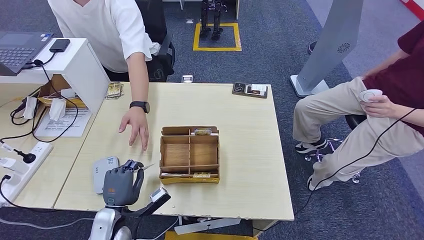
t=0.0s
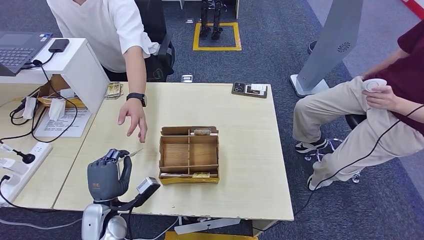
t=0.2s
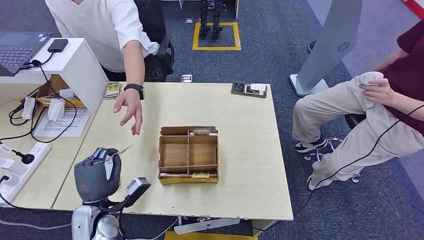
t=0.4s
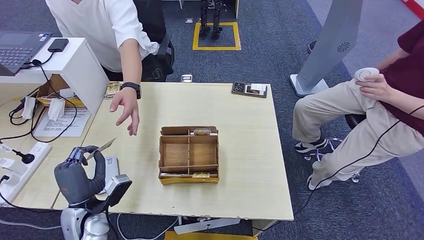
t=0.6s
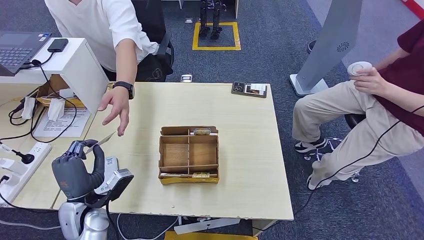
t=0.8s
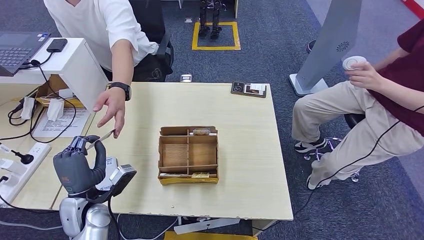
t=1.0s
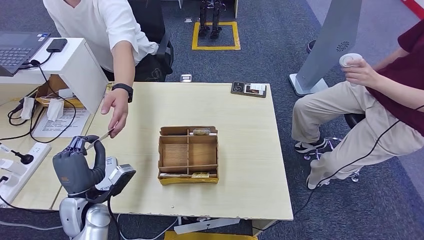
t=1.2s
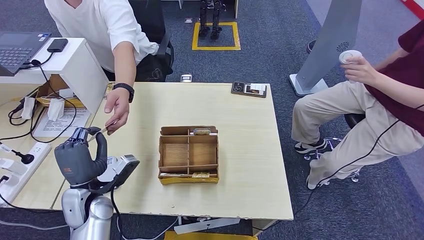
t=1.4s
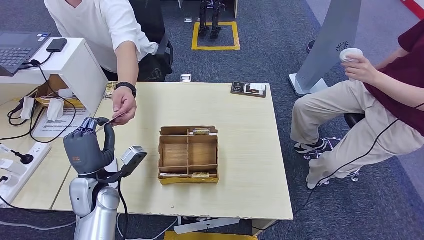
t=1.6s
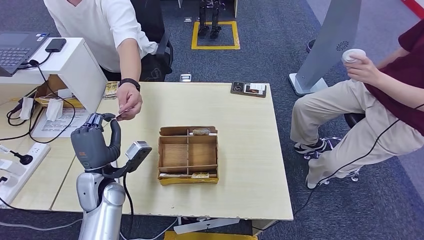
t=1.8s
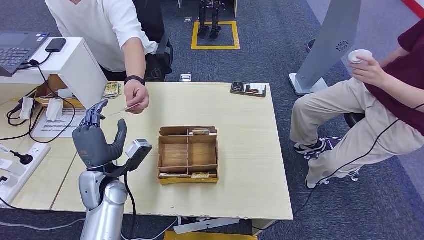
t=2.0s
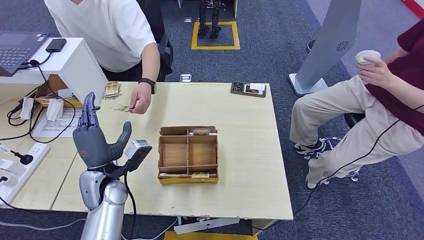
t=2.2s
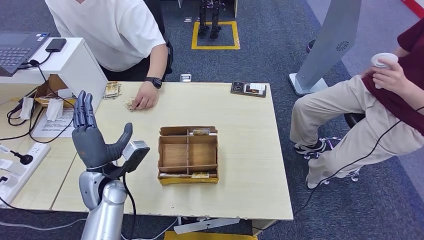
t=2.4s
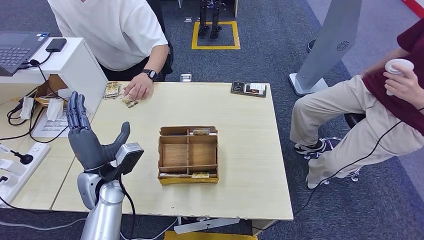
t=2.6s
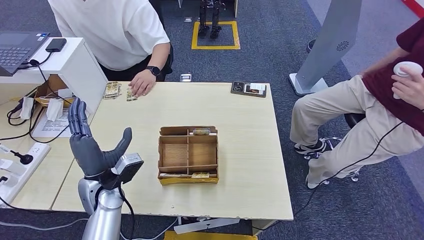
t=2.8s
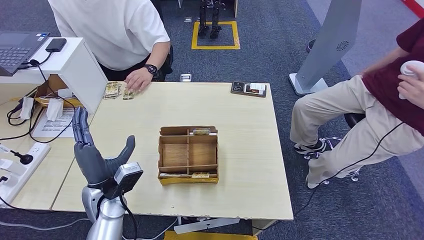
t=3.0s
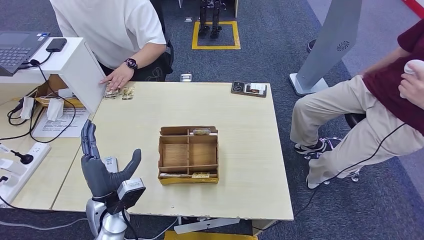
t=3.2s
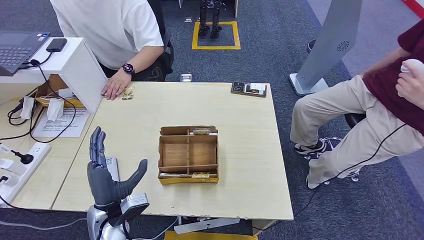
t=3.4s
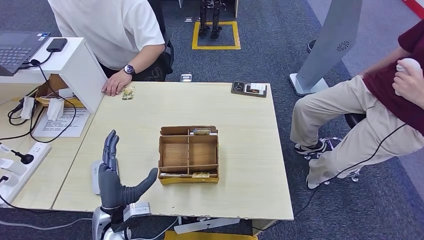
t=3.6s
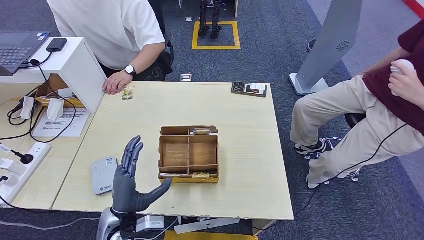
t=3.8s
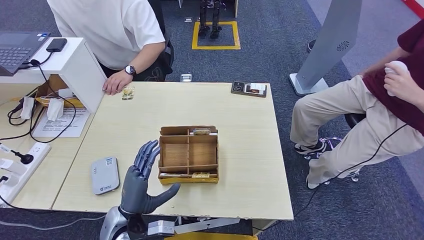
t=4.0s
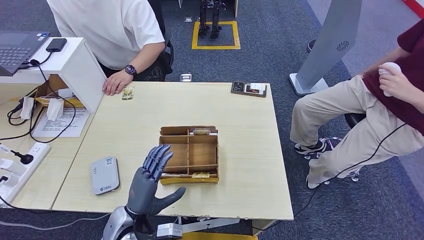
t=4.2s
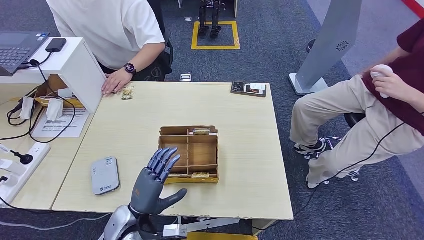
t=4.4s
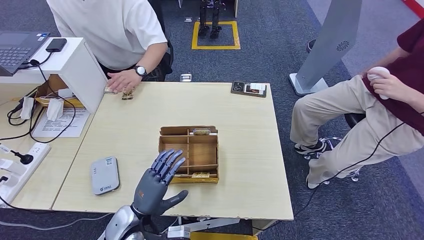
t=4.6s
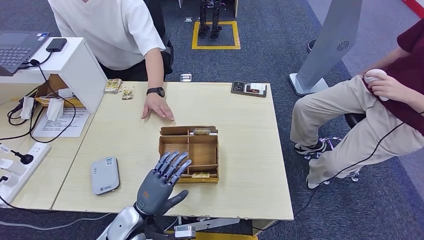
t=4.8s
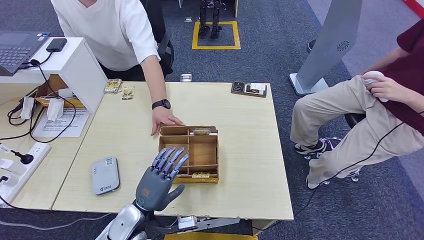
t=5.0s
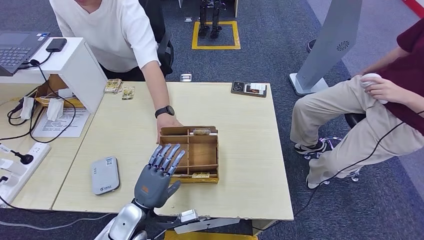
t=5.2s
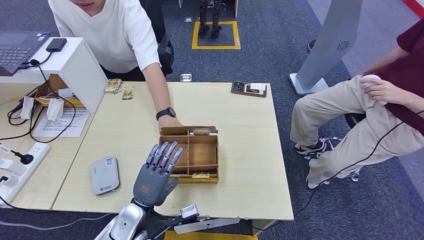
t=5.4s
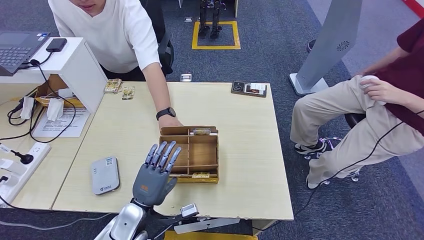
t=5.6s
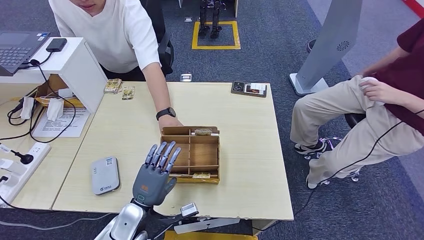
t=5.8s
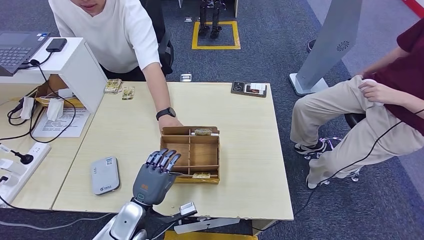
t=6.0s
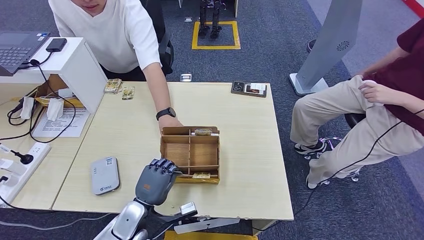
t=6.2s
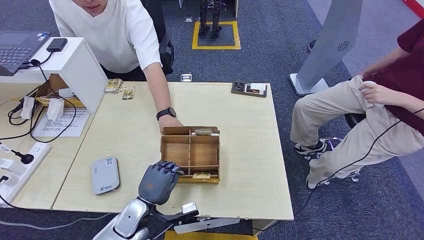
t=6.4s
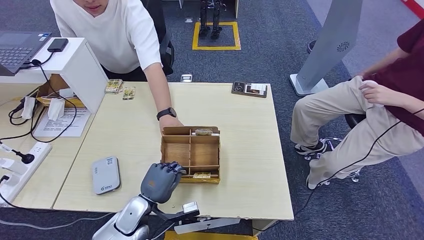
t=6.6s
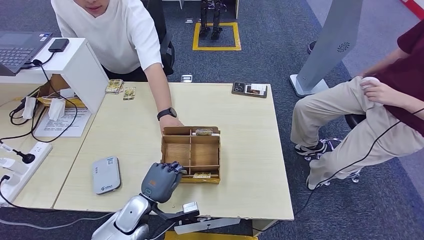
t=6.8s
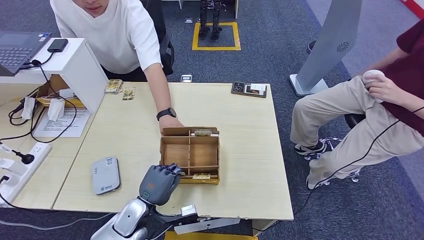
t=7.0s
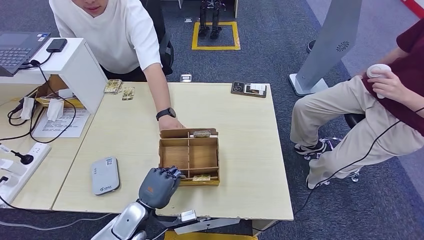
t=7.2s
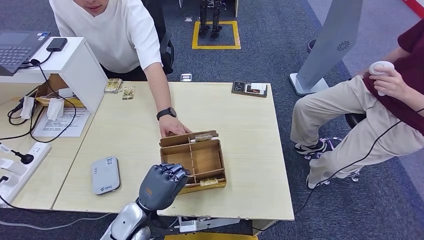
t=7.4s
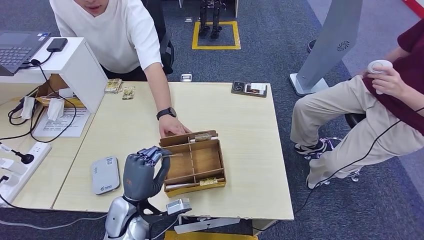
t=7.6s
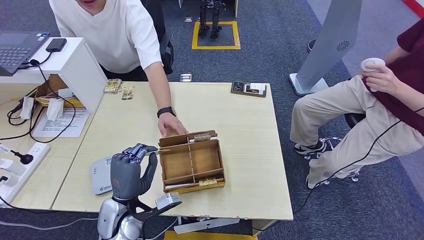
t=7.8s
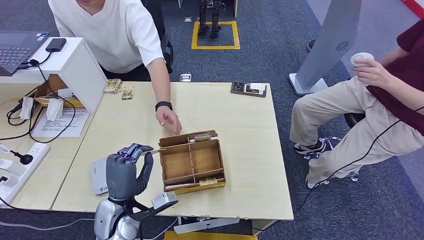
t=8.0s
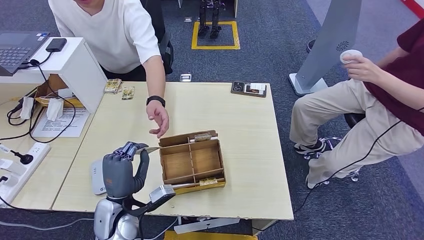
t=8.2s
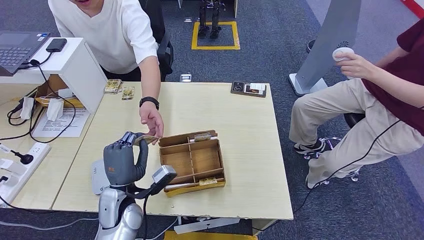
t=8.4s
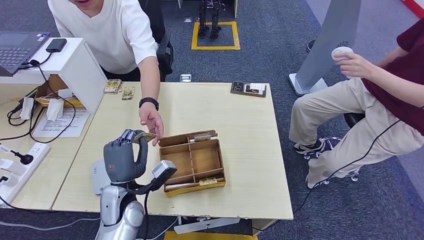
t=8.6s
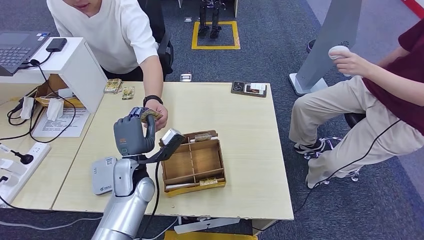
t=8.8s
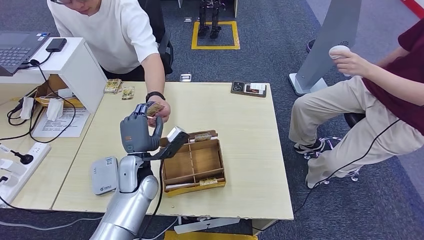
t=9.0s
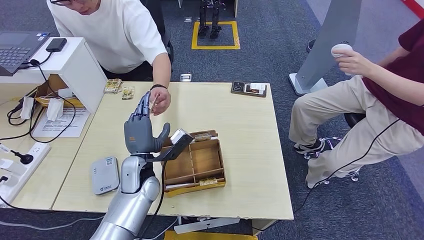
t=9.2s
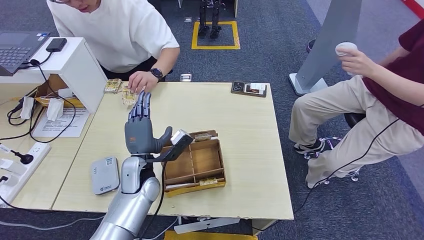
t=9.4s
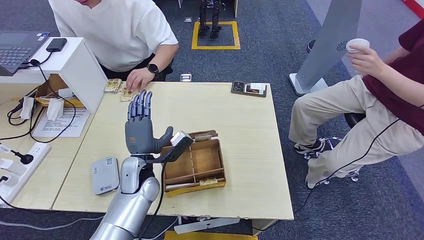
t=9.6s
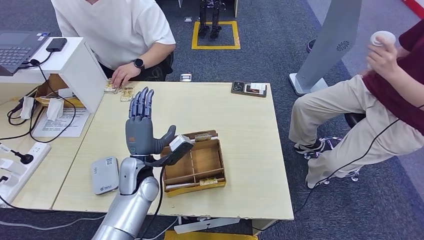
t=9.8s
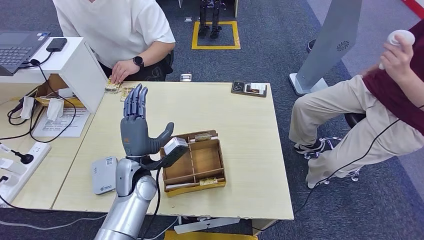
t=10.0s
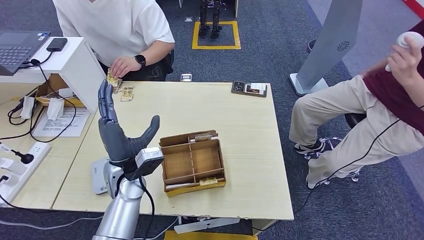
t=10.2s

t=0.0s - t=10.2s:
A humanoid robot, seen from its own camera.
Step, t=0.0s - t=3.2s: Hand the ID card to the person.
Step, t=3.4s - t=7.8s: Pick up the room key from the key card box.
Step, t=8.0s - t=10.2s: Hand the room key to the person.
t=3.0s - t=4.4s: The left hand shifts about 10 cm backward and downward.
t=5.8s - t=7.2s: The hands move only a little.
t=7.2s - t=8.8s: The left hand moves upward and forward, approximately 15 cm.
